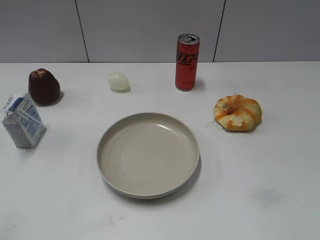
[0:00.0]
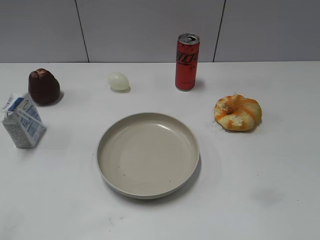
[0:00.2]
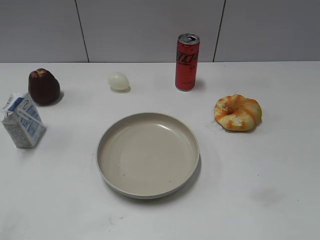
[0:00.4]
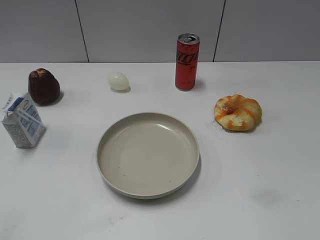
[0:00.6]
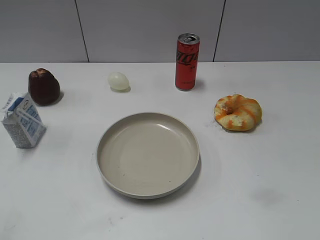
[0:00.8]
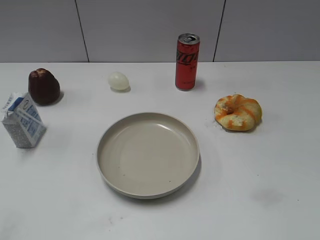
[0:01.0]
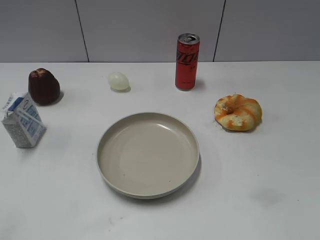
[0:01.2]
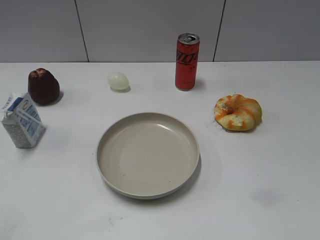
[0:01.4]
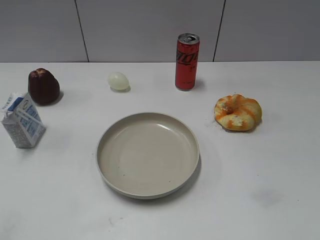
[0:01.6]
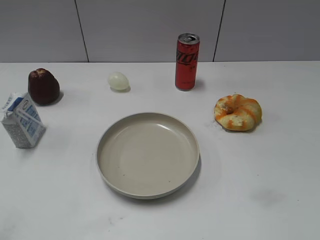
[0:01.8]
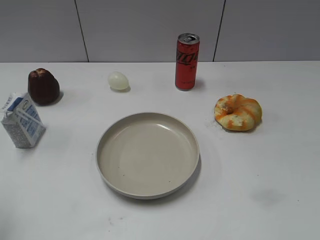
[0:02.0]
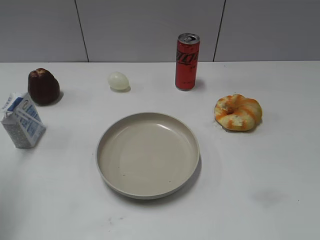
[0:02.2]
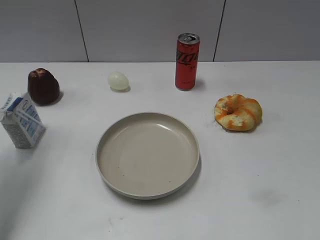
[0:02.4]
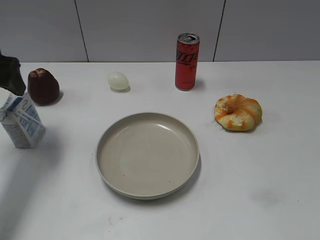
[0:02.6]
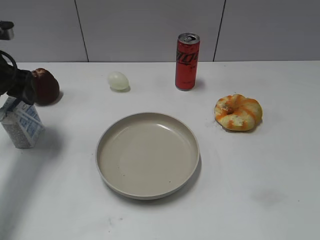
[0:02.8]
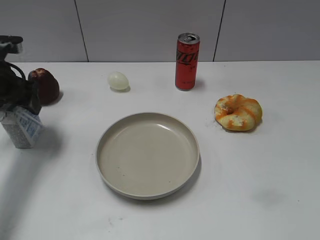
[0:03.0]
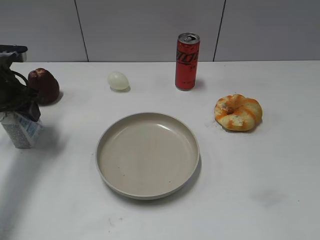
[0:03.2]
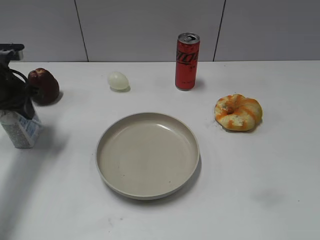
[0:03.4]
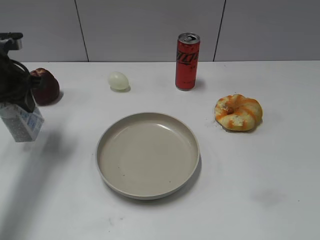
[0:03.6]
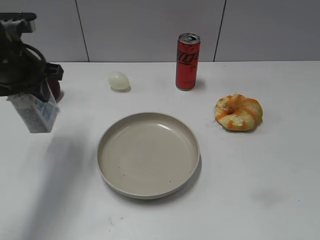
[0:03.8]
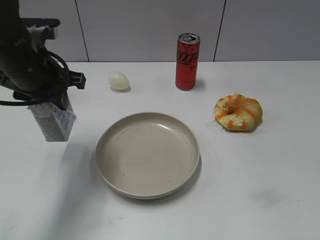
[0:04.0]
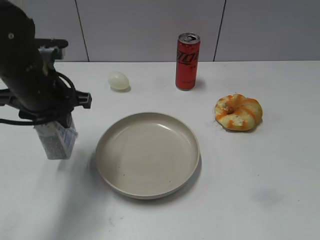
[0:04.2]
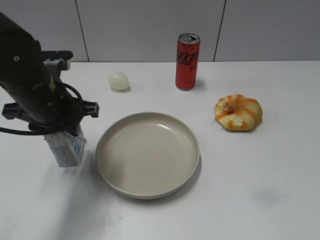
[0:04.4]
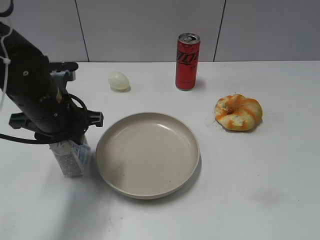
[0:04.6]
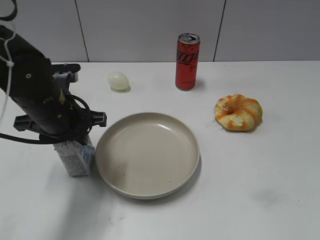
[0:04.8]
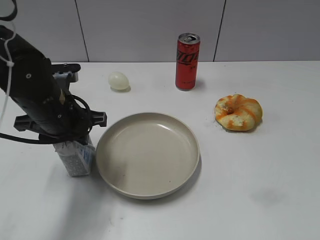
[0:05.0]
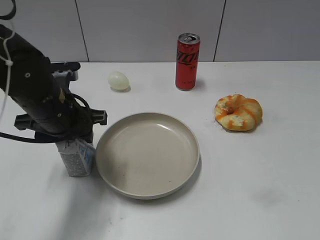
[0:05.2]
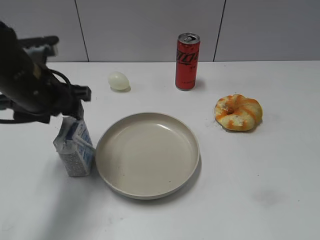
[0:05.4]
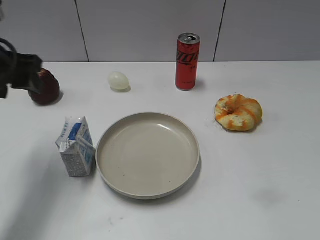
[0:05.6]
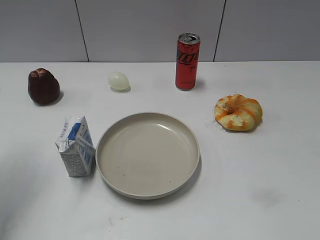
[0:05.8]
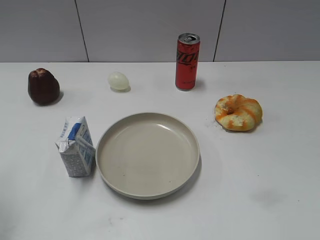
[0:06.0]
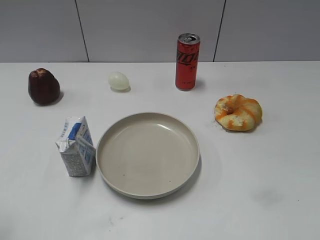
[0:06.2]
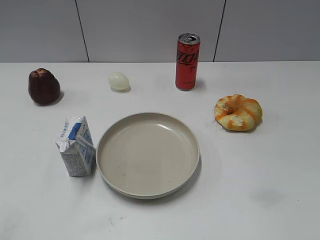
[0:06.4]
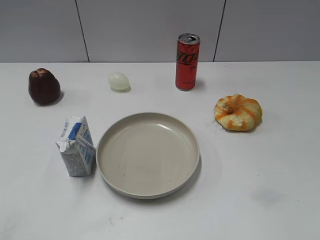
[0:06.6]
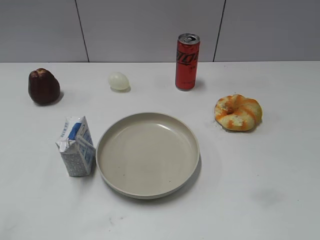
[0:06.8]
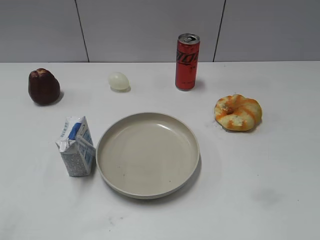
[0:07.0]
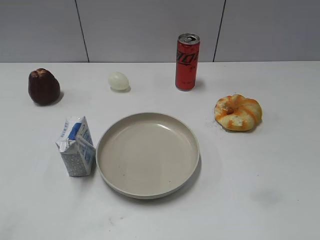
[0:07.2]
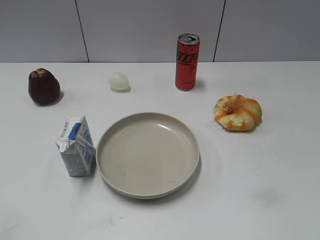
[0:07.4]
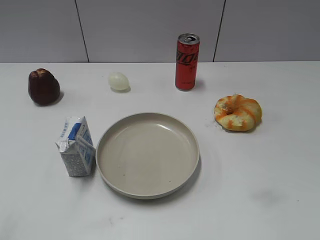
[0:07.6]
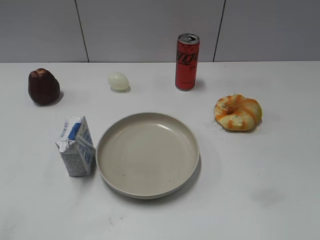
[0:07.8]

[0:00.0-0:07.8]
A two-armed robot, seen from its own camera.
Step, 0:01.4 to 0:03.4: Grasp the milk with left gripper.
Step, 0:03.6 to 0:05.4: Place the milk on the table with left gripper.
0:01.6 to 0:03.2: The left gripper heads forward, covering about 35 cm, and opens, then closes again.
0:03.2 to 0:04.6: The left gripper shifts about 15 cm to the right and backward, and closes.
0:04.6 to 0:06.2: The left gripper goes roughly 25 cm to the left, backward and upward, and opens up.
